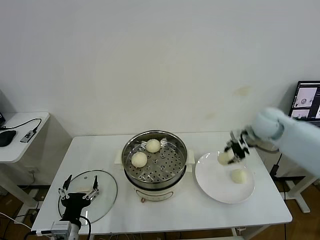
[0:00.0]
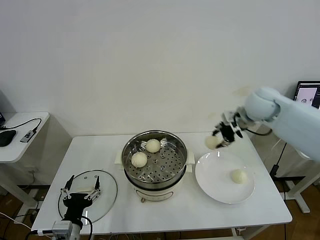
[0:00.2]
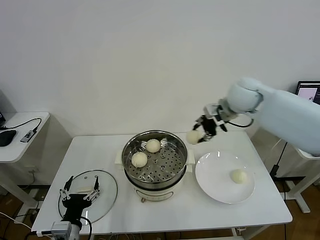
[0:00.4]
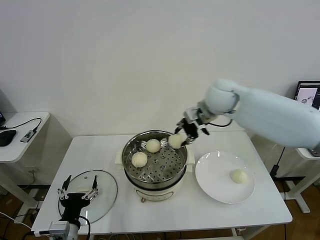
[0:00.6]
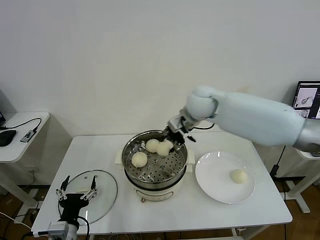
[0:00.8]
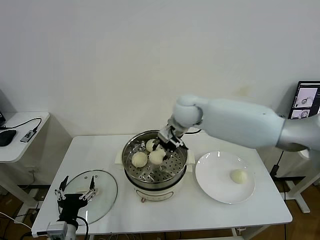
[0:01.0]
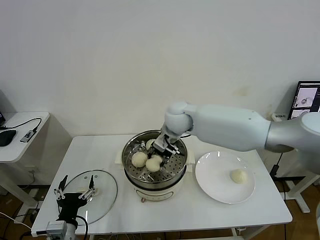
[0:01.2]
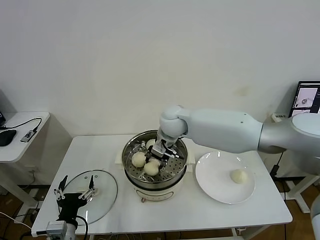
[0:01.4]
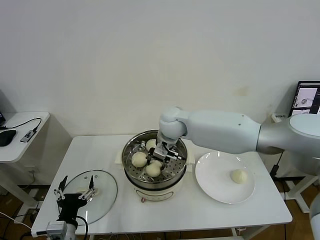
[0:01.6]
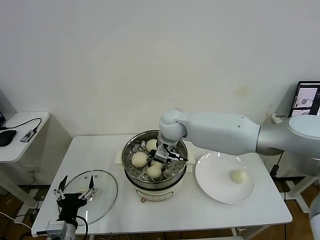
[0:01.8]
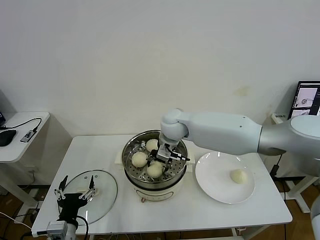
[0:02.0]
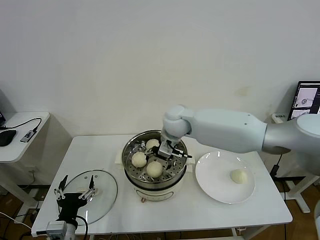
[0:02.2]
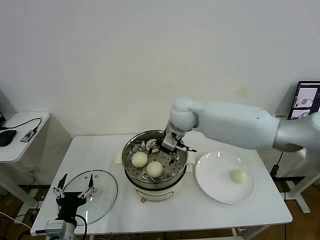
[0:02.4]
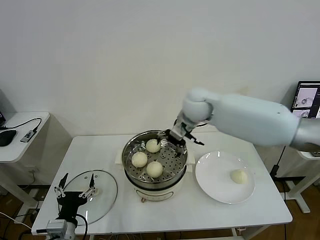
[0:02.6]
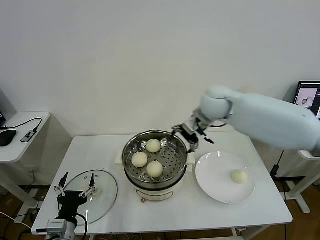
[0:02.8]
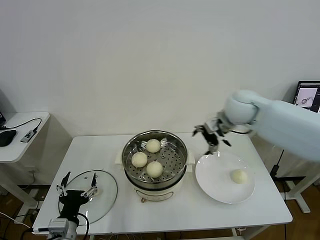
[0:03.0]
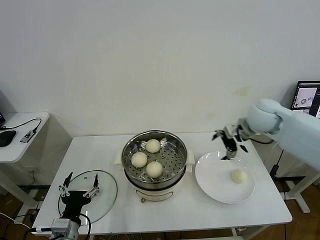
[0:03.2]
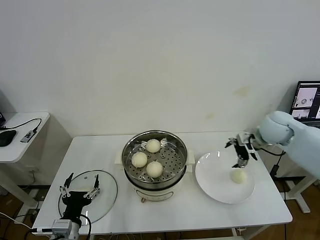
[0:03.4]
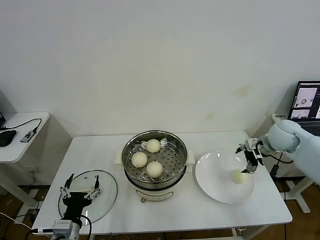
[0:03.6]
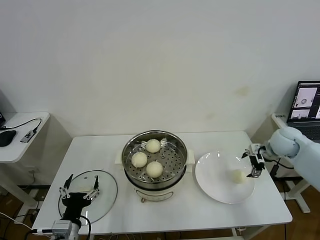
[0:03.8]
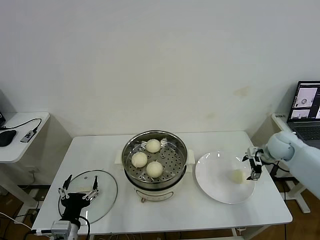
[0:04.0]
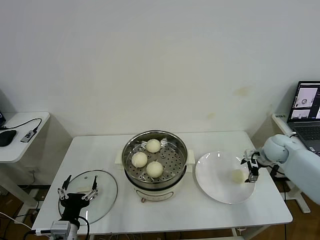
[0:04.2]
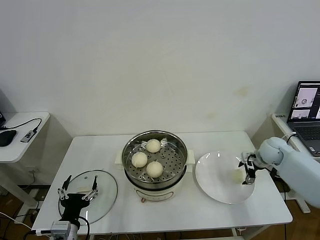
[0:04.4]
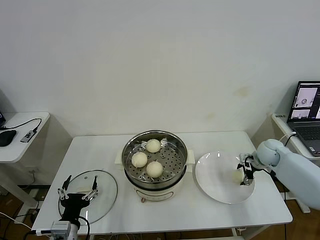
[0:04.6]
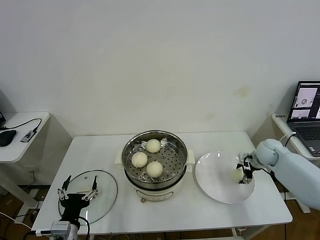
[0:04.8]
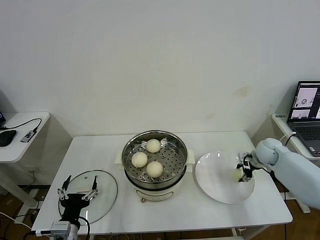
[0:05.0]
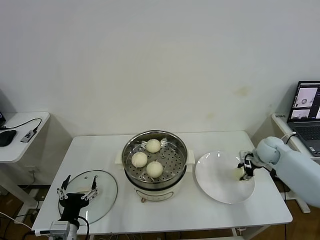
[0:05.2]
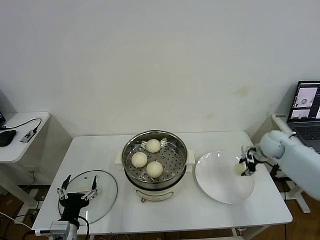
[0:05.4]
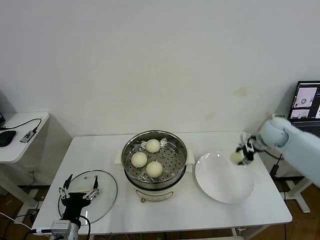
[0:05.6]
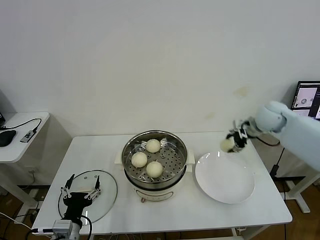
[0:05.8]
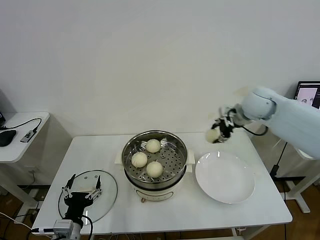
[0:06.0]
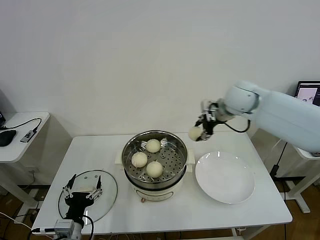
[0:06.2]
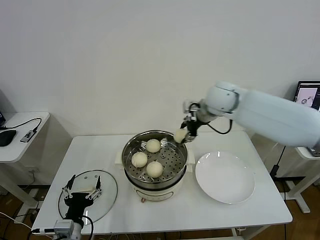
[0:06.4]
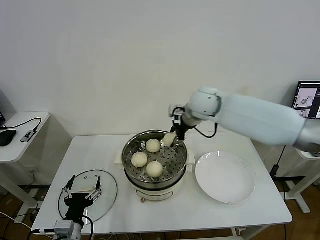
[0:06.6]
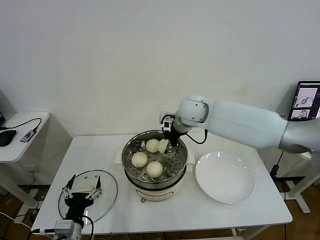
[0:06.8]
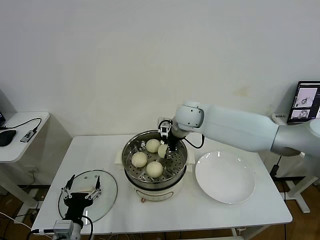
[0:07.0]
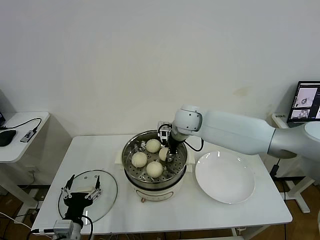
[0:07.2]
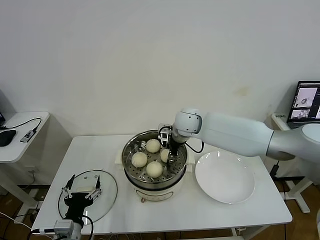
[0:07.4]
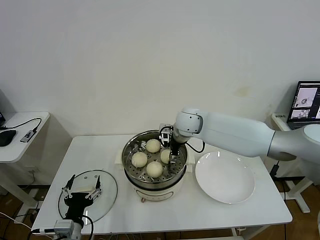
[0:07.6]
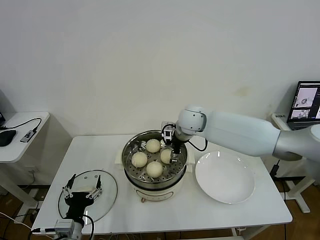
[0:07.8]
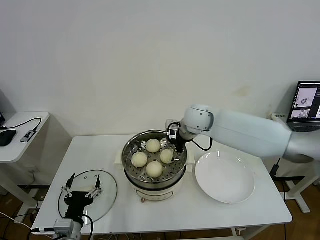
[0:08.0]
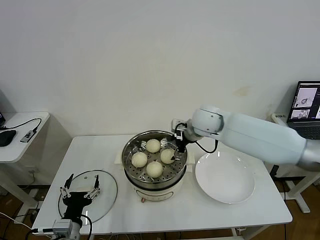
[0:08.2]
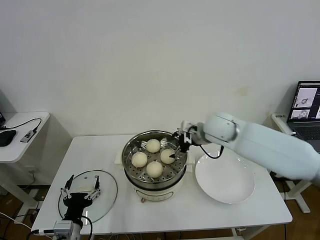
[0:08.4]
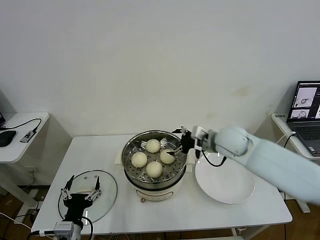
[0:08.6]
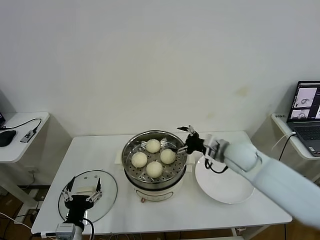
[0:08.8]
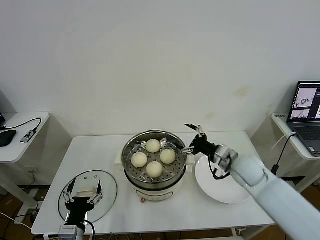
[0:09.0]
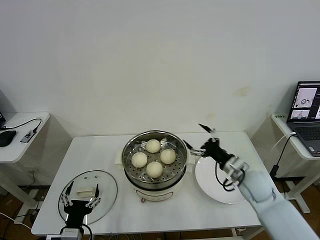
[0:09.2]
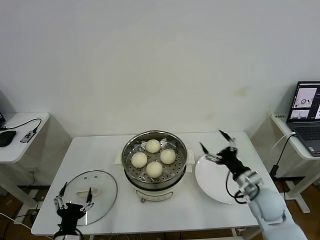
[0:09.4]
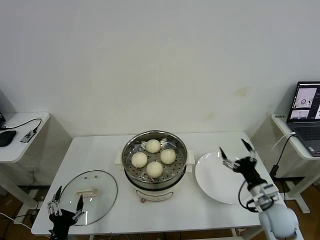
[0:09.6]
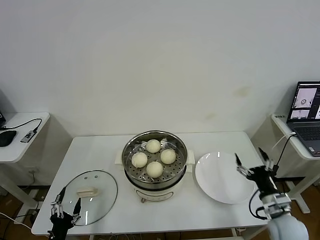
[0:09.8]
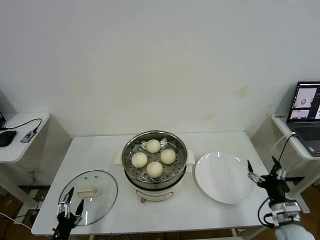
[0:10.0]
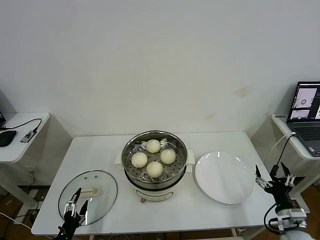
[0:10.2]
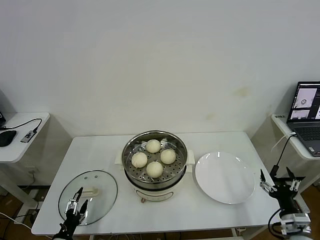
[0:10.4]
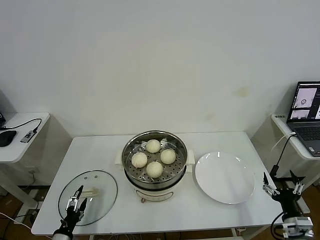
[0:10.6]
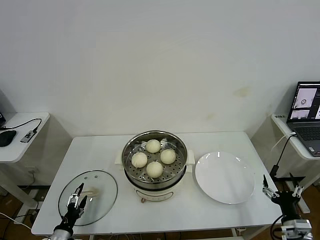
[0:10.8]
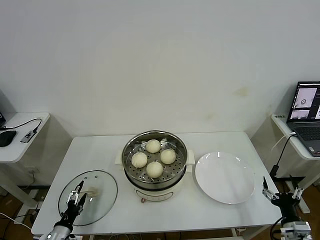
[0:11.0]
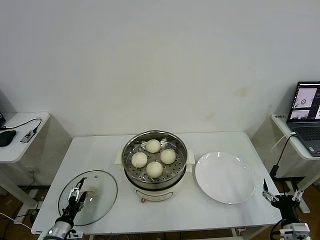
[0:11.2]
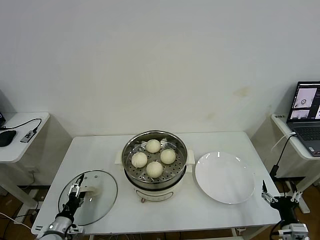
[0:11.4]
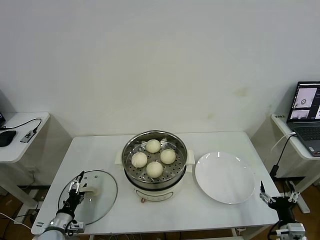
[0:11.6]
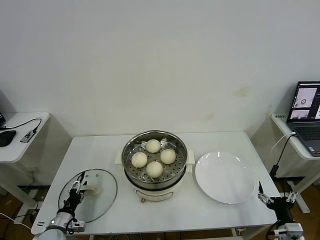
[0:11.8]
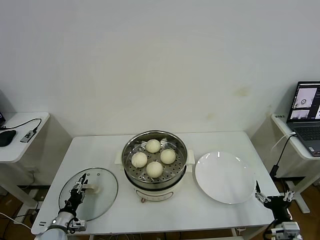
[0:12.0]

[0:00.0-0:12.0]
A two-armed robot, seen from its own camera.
Task of the whole recording: take steamed baozi put them in steamer then cover it.
Step, 0.0 to 2.2 s: Place the baozi on the steamer with right gripper.
Step, 2.4 to 5.2 s: Grasp the baozi in the plate with right gripper.
Step, 5.4 to 7.8 s: Place the baozi on the steamer with right gripper.
0.0 to 1.6 s: The right gripper shifts some 30 cm to the left.
1.6 to 3.0 s: The right gripper goes about 20 cm to the right, and opens its fingers.
3.0 to 4.4 s: The right gripper travels downward and to the right by some 25 cm.
4.4 to 6.0 s: The right gripper shifts some 25 cm upward and to the left, and closes its fingers.
6.0 to 7.6 s: The right gripper shifts roughly 20 cm to the left and downward, and opens up.
7.6 to 9.0 s: The right gripper goes roughly 25 cm to the right, backward and downward.
9.0 to 10.4 s: The left gripper shifts roughly 15 cm downward and to the left, while the right gripper heads backward, to the right and downward, covering roughly 30 cm.
10.4 to 12.0 s: The left gripper goes roughly 10 cm forward, and closes its fingers.

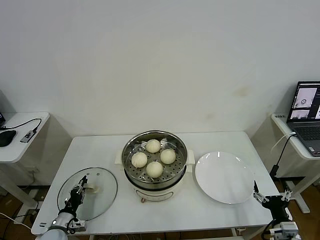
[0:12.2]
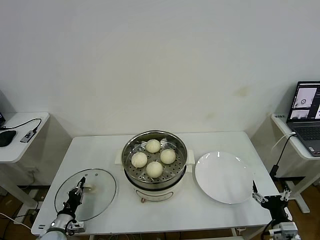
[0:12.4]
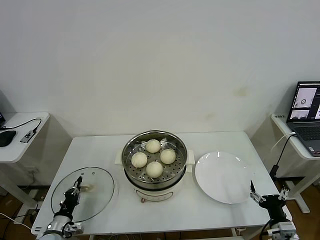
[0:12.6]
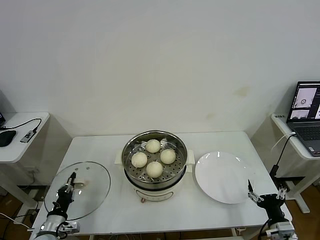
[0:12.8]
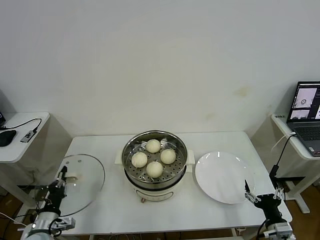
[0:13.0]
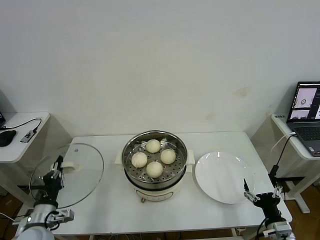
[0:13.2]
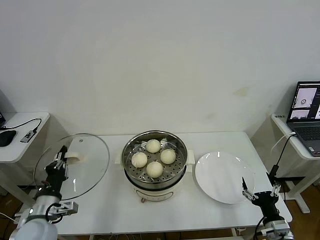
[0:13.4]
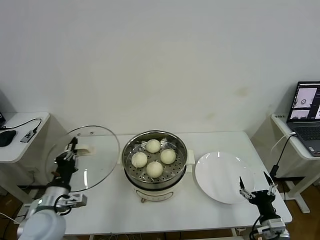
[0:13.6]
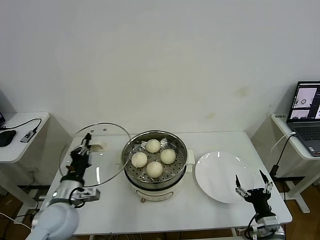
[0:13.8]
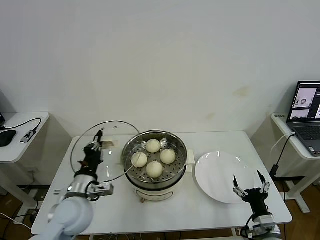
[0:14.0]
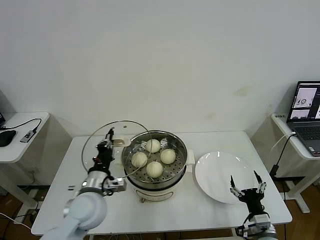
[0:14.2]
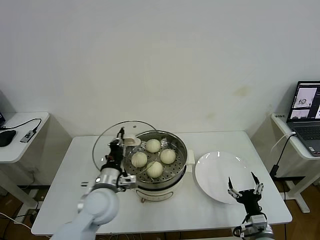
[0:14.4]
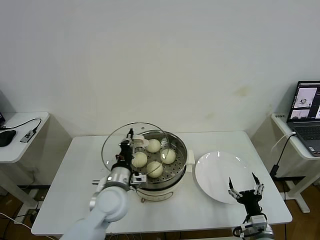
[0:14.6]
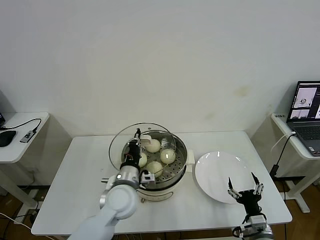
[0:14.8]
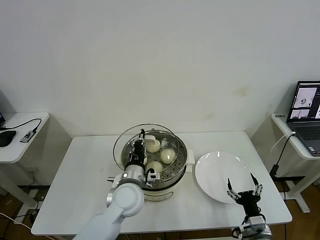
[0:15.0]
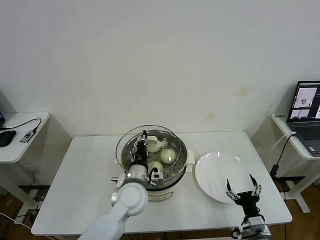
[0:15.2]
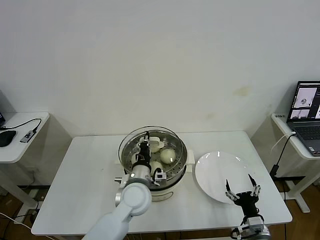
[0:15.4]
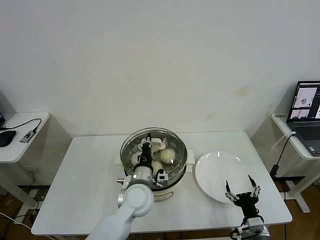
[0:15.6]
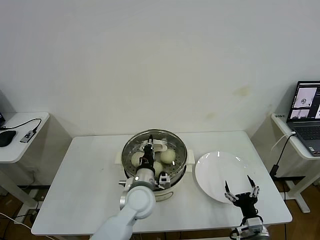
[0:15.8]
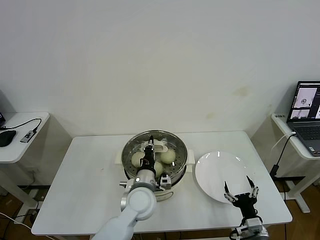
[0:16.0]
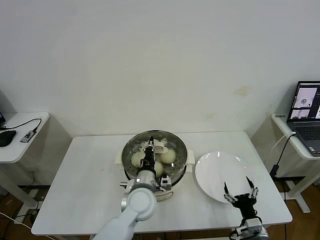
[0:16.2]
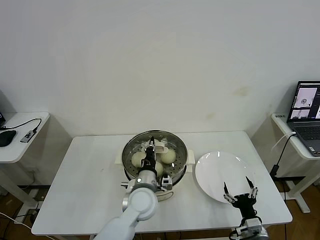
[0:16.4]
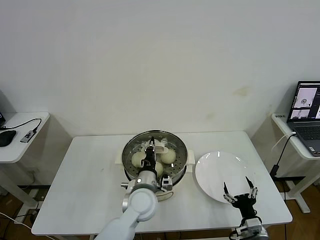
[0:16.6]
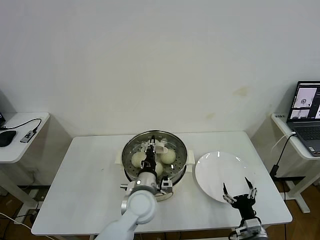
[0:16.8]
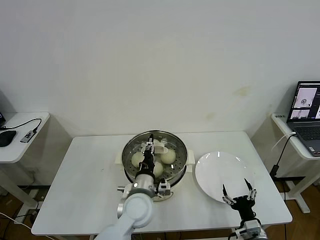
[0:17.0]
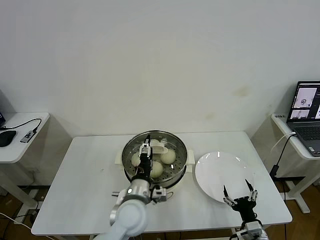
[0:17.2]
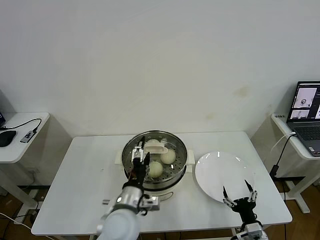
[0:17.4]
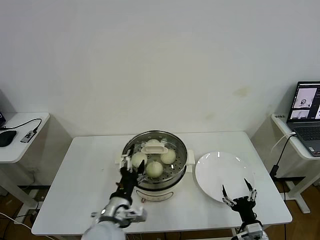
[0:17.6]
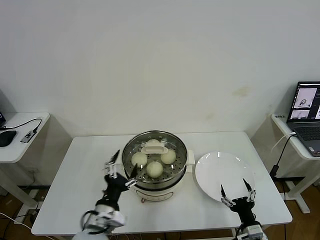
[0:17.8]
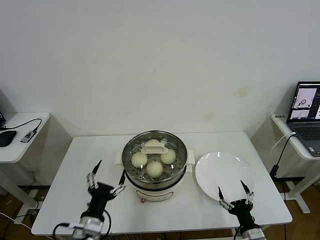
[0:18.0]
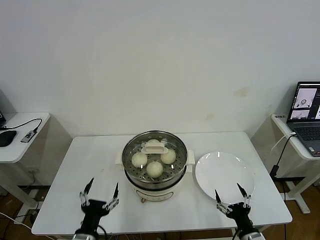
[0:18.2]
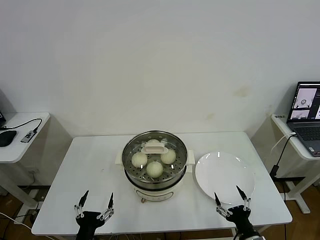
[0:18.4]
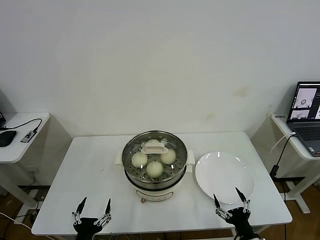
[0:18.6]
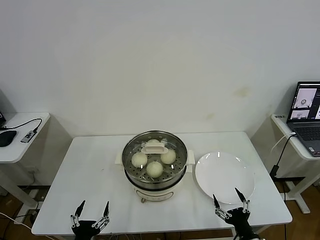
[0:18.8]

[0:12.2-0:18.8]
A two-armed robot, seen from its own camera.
Task of the whole recording: take steamed baozi put them in steamer then cover it.
Step, 12.8 to 17.6 s: Place the pot lid on the steamer with left gripper.
12.2 to 13.8 s: The right gripper changes place by roughly 5 cm, while the left gripper shifts about 25 cm upward and to the right, and closes up.
13.8 to 15.4 s: The left gripper moves to the right, approximately 20 cm.
15.4 to 17.2 s: The left gripper opens up.
17.2 to 18.8 s: The right gripper shifts approximately 5 cm backward. Meanwhile the left gripper goes approximately 25 cm backward and to the left.

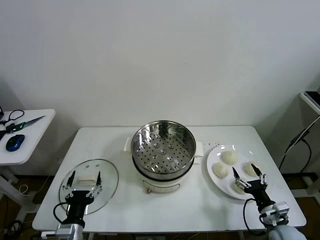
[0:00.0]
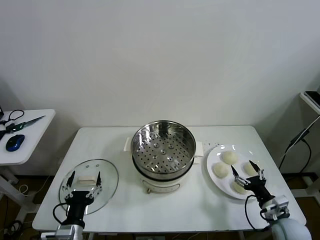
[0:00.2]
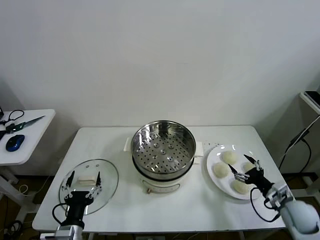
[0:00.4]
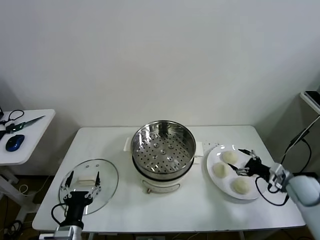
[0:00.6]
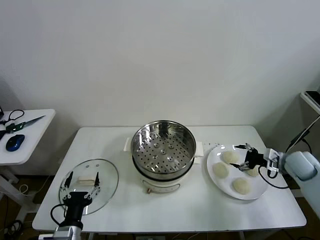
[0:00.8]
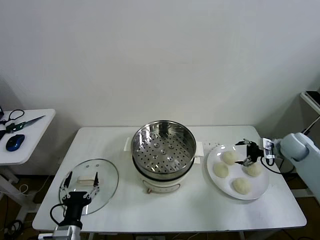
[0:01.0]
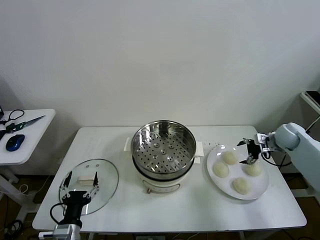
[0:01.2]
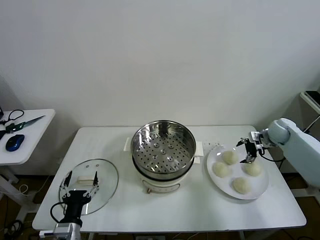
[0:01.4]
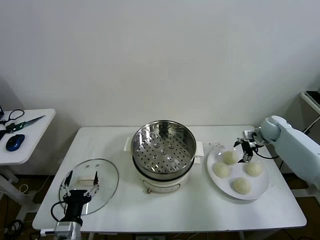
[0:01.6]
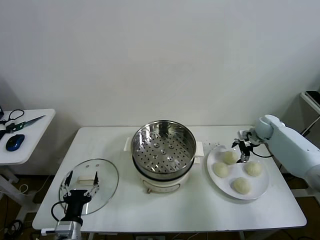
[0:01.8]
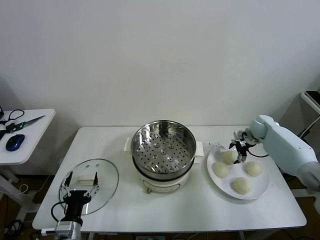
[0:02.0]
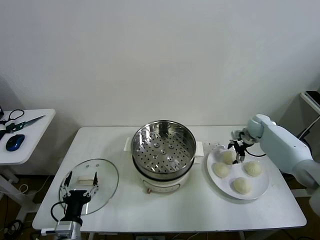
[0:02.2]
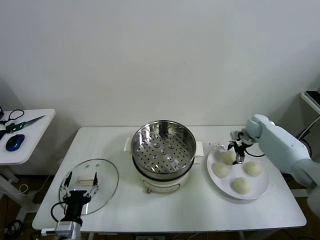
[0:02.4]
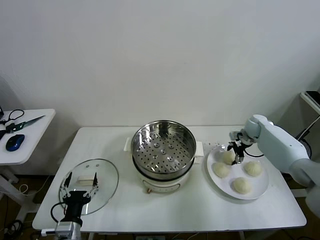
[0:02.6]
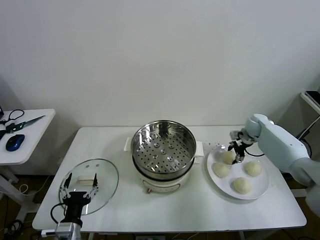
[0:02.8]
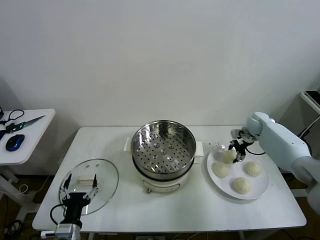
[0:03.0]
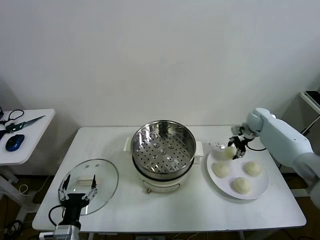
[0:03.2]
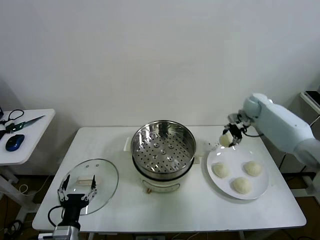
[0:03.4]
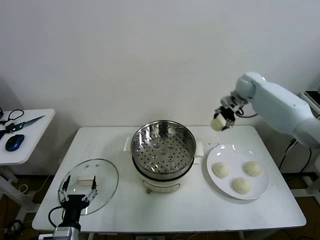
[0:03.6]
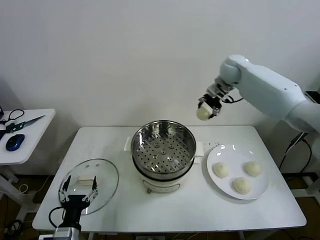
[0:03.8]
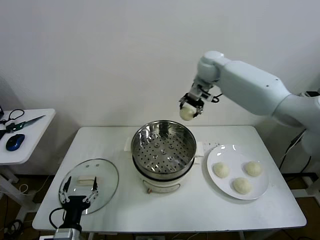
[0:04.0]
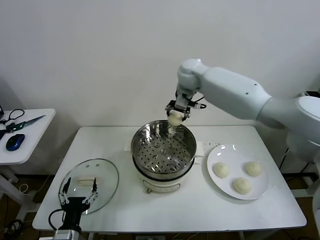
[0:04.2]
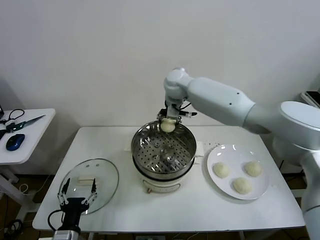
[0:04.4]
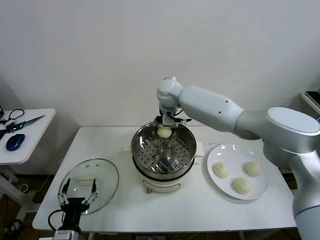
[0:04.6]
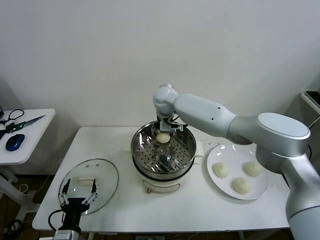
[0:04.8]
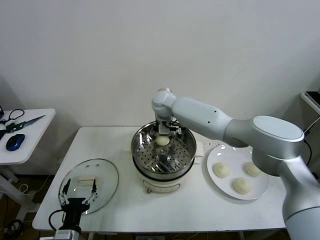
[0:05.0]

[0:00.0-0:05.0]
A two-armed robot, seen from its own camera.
Task of the whole recording: take steamed baozi put them in steamer then cover it.
Step, 0.0 to 2.6 s: Grasp the baozi in the plate with right gripper.
1.6 to 3.4 s: The right gripper travels upward, to the left and forward by approximately 15 cm, and closes up.
3.4 to 5.0 s: The right gripper heads to the left, covering approximately 35 cm, and opens.
